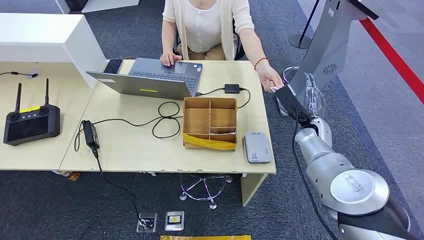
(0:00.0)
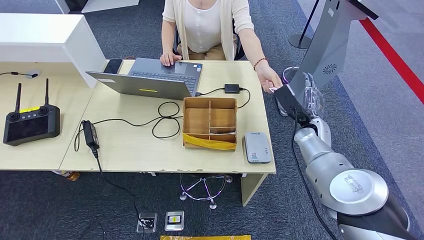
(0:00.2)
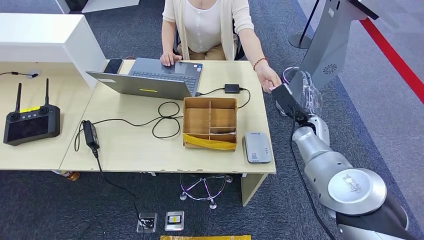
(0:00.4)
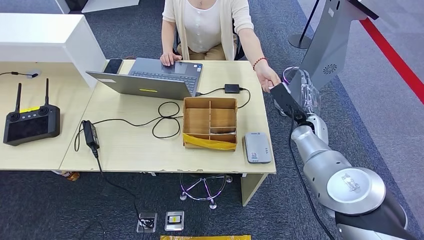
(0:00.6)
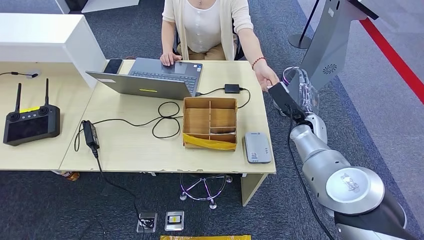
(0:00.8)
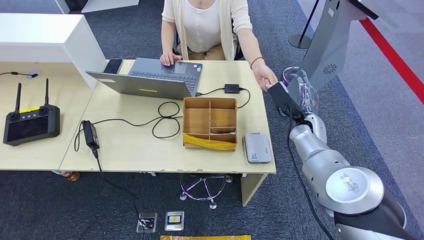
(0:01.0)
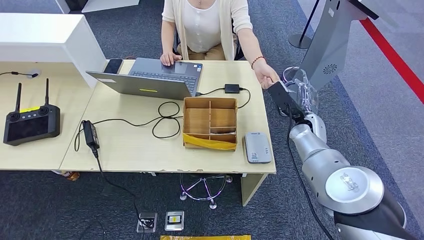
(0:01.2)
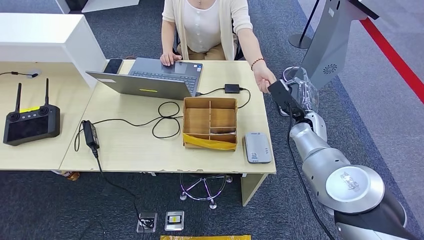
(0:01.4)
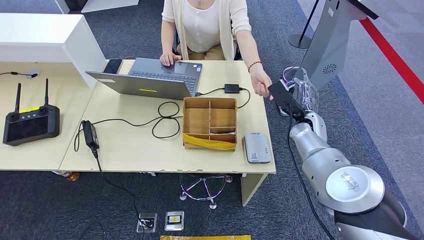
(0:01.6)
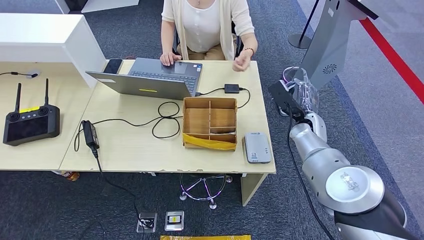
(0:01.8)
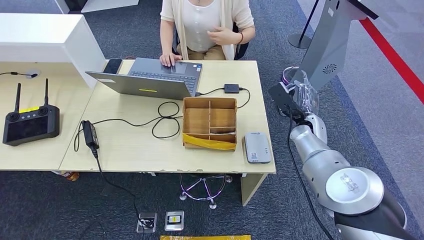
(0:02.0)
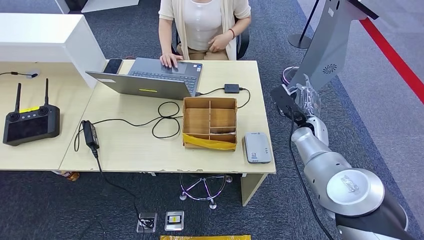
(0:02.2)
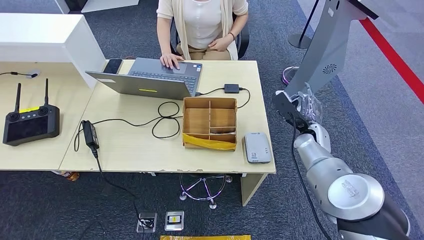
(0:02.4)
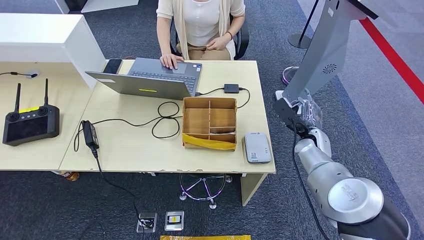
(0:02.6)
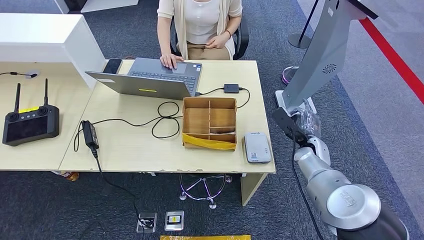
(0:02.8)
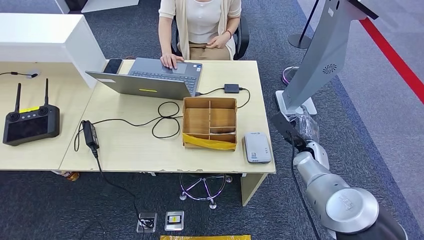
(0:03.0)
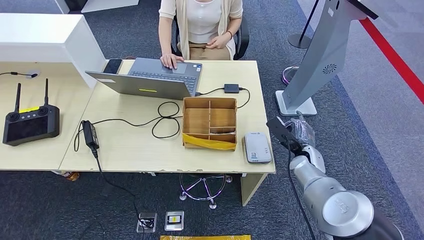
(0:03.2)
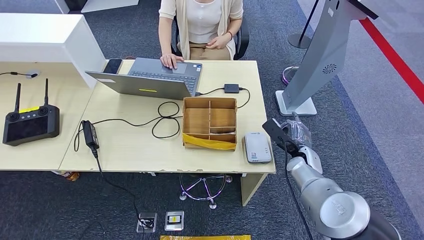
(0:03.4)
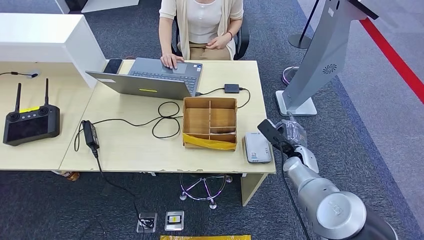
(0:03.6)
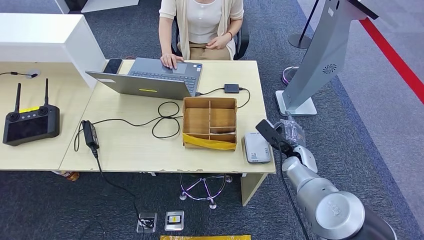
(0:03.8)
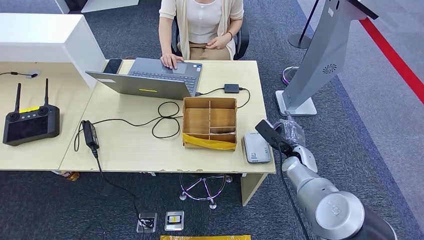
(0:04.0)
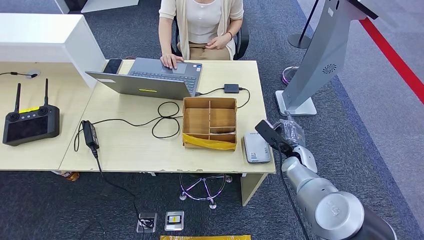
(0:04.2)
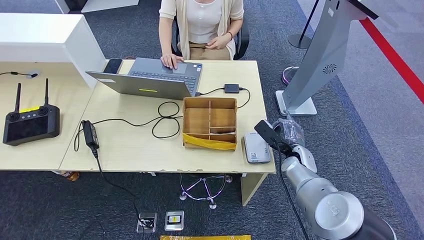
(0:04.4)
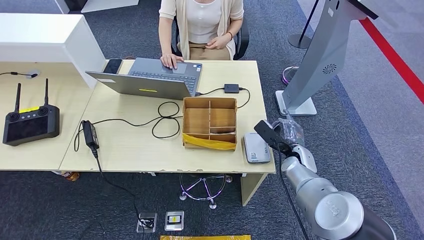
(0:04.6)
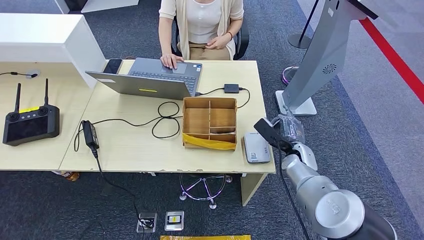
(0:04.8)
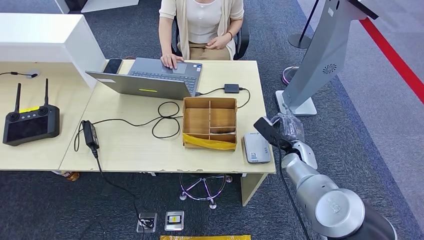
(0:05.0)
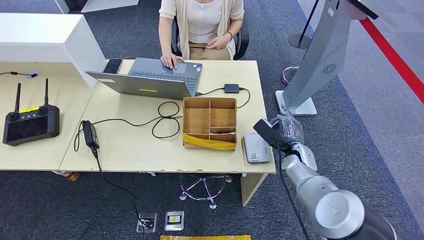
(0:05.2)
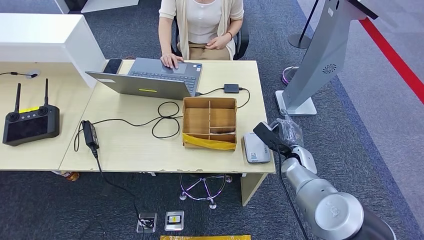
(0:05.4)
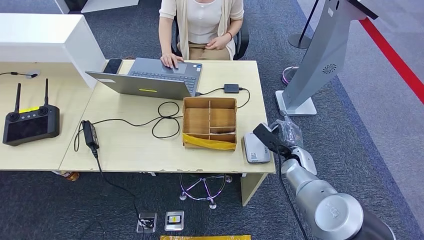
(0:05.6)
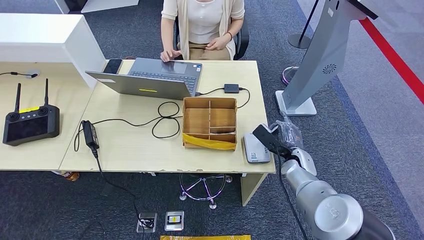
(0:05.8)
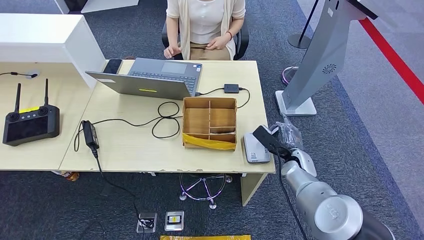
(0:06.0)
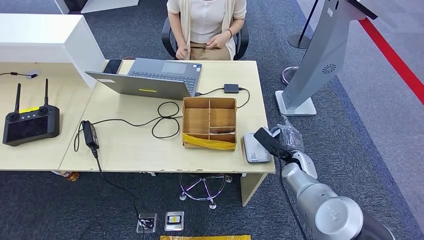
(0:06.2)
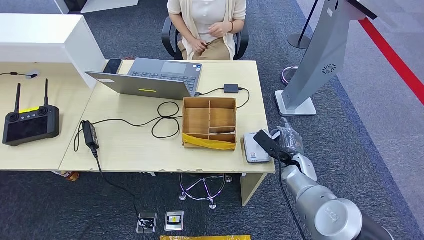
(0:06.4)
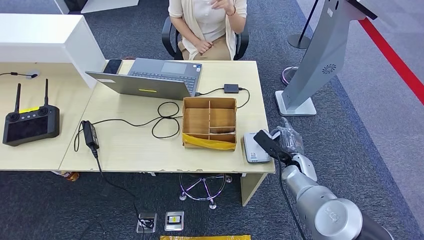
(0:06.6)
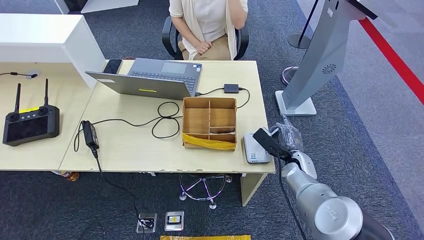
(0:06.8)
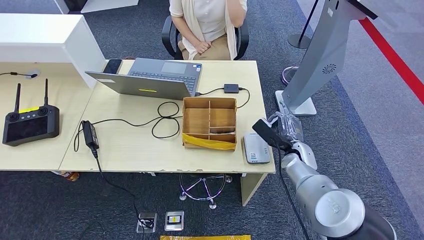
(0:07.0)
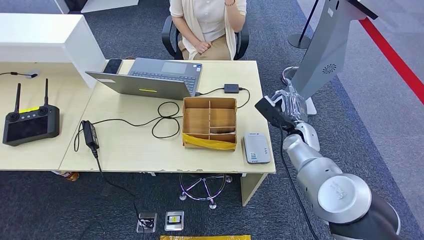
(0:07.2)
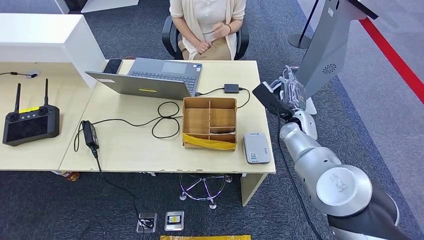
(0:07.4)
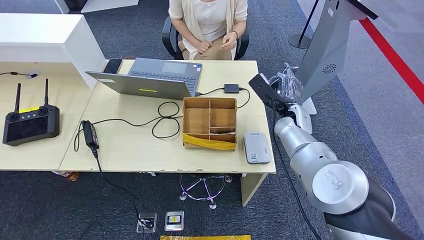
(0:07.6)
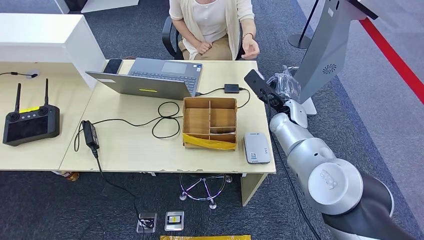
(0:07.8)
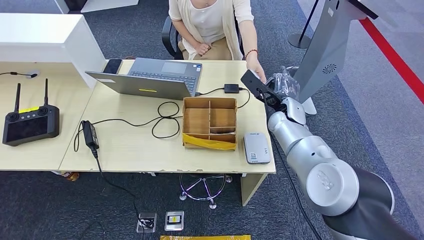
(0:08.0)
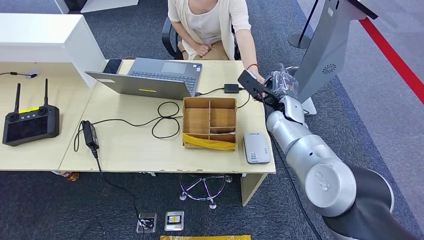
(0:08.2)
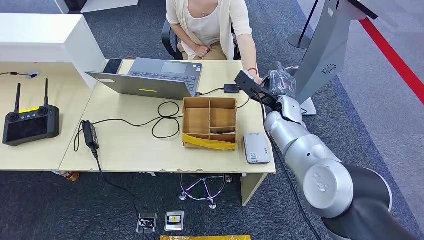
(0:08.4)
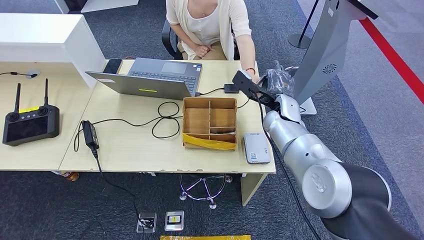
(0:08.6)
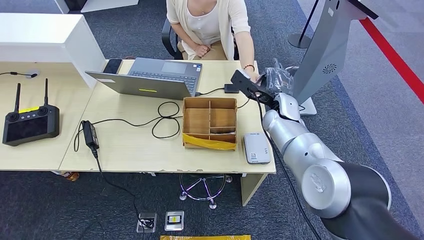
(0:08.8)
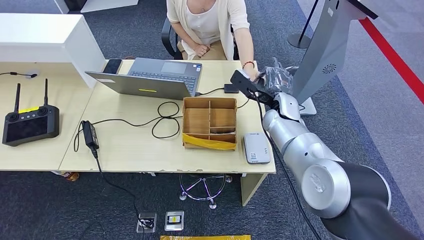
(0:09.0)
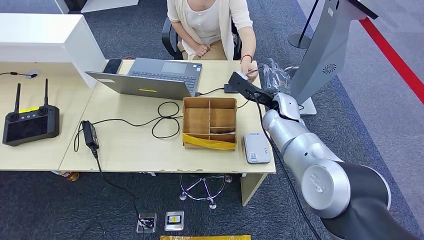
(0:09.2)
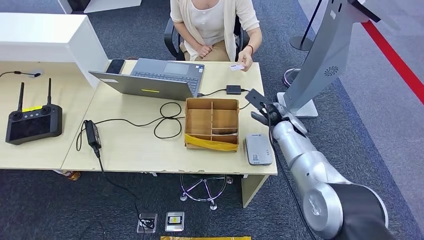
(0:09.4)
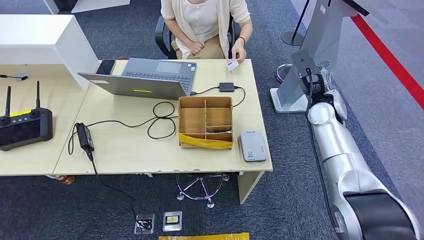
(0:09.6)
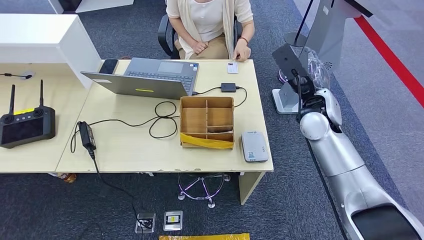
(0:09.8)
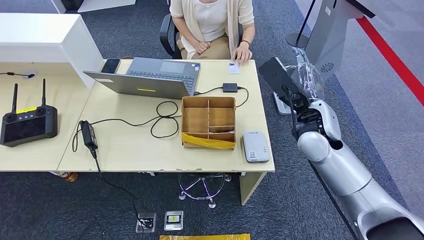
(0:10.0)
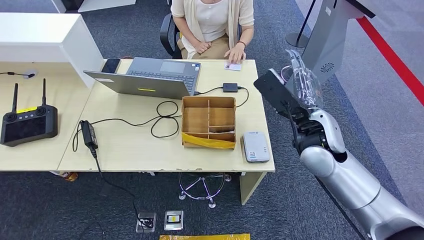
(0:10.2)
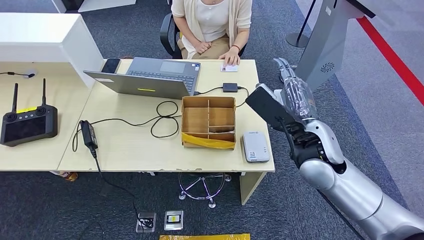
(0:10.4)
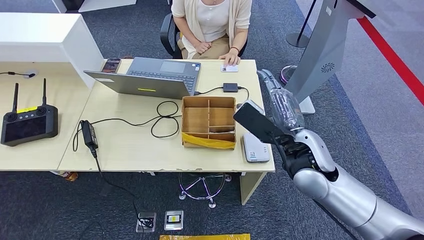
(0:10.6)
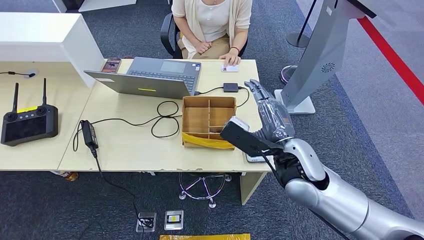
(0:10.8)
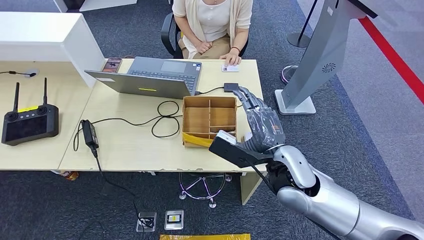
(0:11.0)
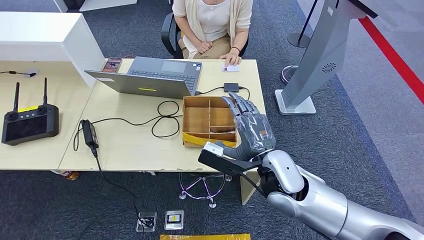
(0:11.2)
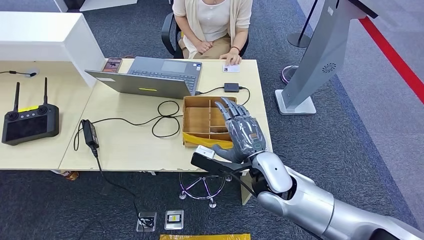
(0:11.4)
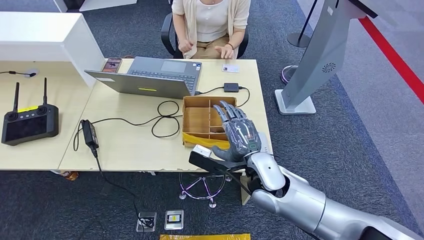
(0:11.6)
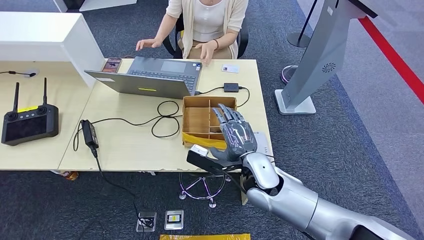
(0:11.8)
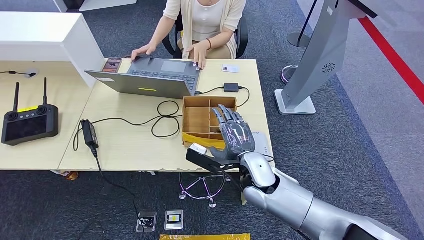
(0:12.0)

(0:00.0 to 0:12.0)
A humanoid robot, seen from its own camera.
Step, 0:00.0 - 0:01.4: Take the ID card from the person's hand.
Step, 0:01.6 - 0:08.2: Place the ID card on the card reader.
Step, 0:08.4 - 0:10.0: Hand the ID card to the person.
0:01.6 - 0:03.0: The right hand travels downward and backward by approximately 10 cm.
0:03.0 - 0:04.4: The hands stay close to where they were, moving slightly.
0:04.4 - 0:06.0: Neither hand changes place.
0:06.0 - 0:07.6: The right hand shifts some 15 cm upward and forward.
0:07.6 - 0:09.0: The hands move only a little.

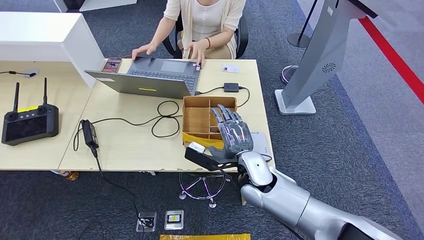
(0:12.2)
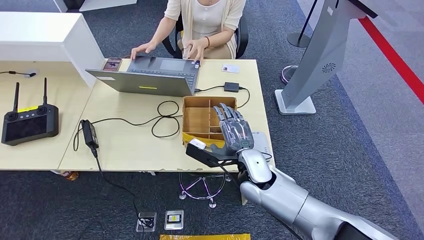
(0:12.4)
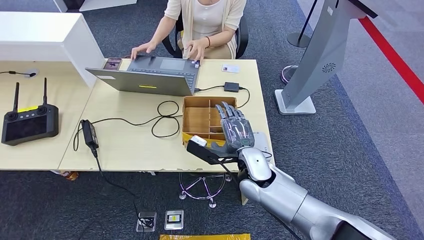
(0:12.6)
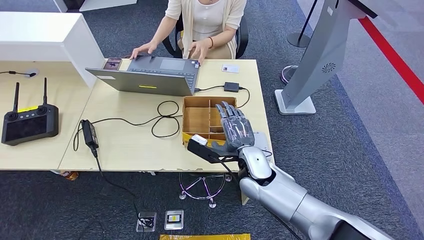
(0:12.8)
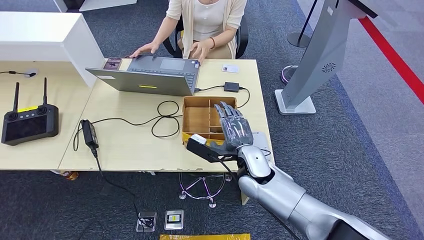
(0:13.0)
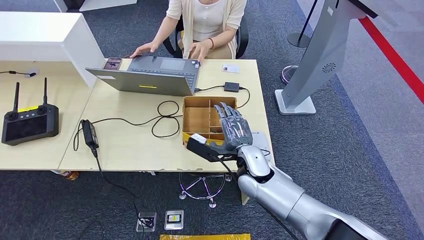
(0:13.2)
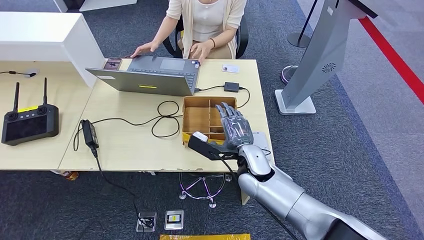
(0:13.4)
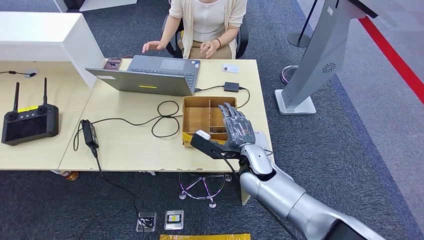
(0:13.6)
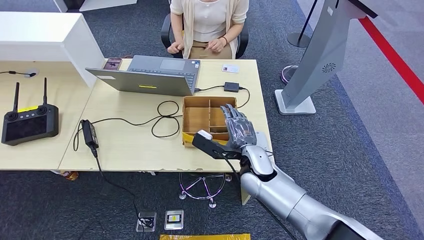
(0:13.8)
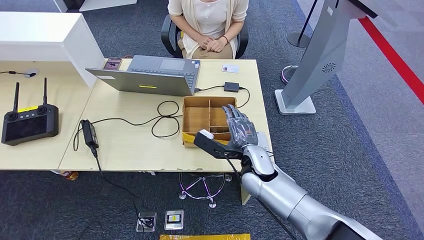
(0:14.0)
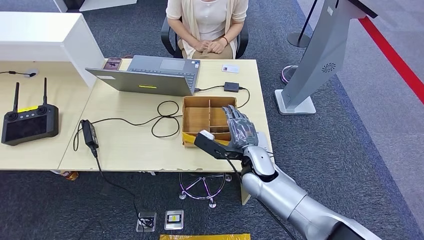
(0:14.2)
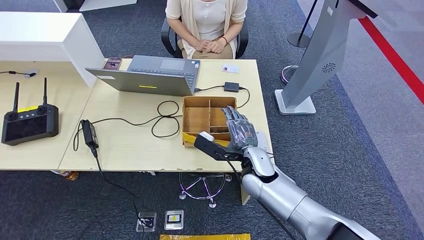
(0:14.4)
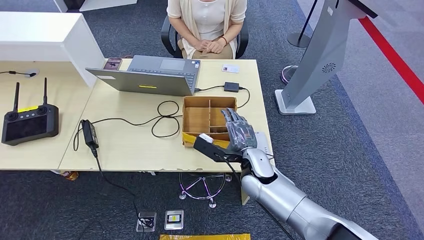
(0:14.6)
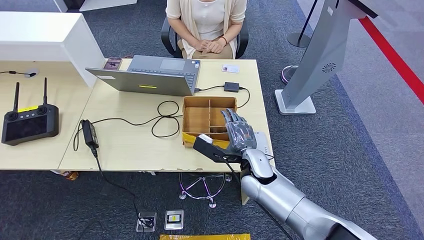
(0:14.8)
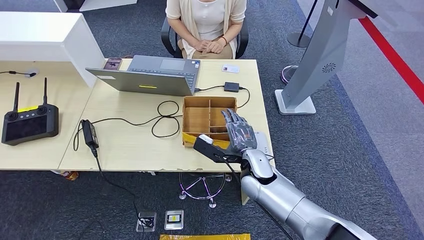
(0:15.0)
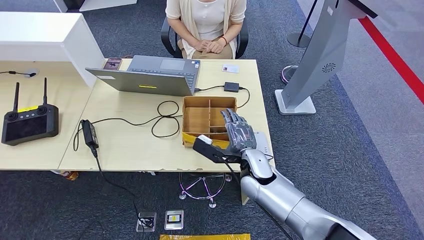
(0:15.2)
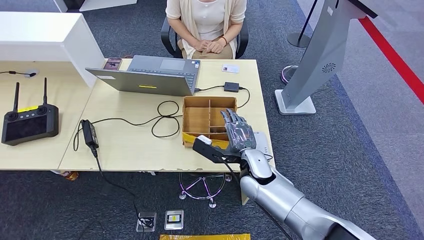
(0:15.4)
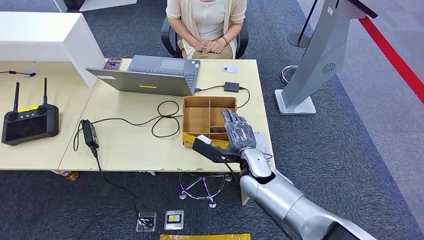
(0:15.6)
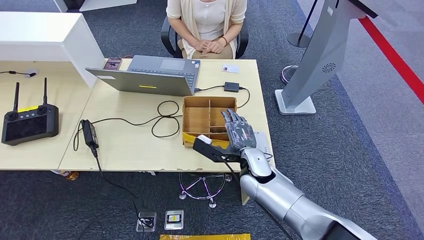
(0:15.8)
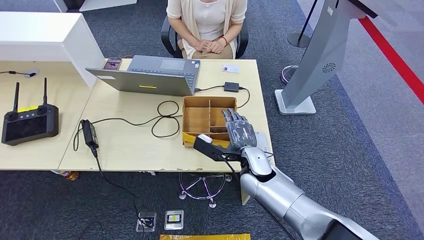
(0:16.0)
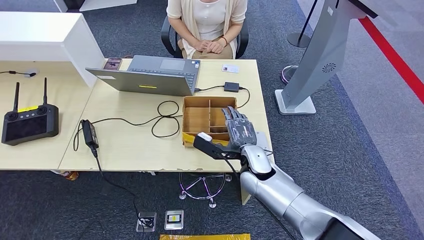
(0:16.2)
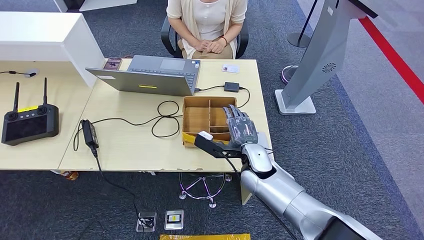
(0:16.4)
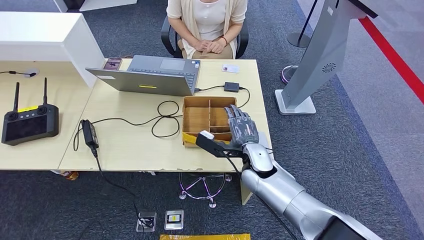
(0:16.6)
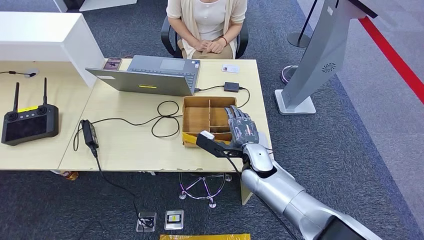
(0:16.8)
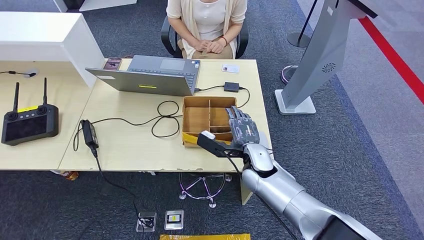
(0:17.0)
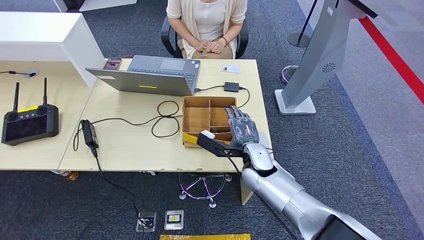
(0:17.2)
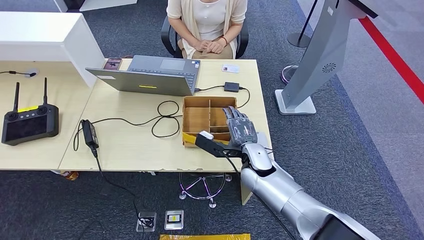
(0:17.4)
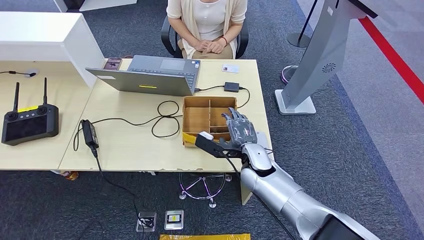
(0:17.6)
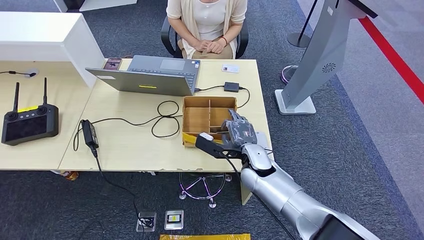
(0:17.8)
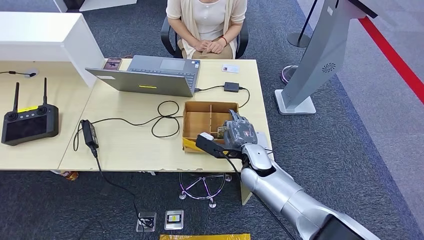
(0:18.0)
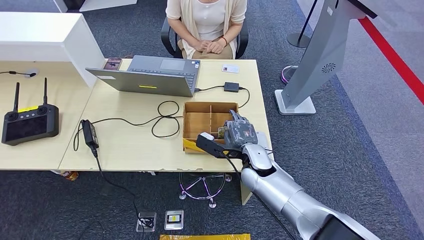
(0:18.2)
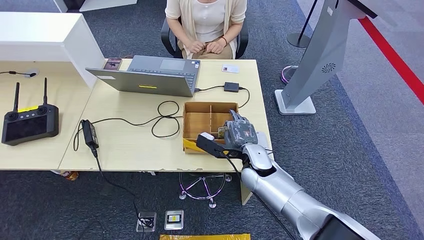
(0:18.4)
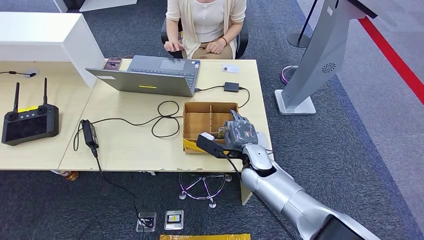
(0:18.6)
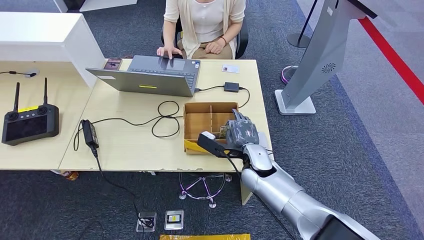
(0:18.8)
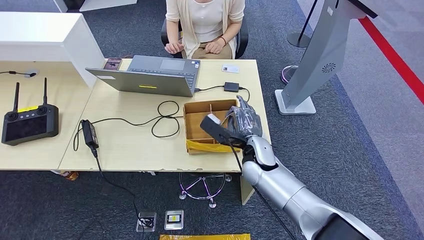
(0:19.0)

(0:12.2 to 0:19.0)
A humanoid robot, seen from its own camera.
0:12.2 - 0:15.0: The hands move only a little.
0:15.0 - 0:16.2: The two hands keep their place.
0:16.2 - 0:17.6: The two hands keep their place.
0:17.6 - 0:19.0: The hands stay close to where they were, moving slightly.
